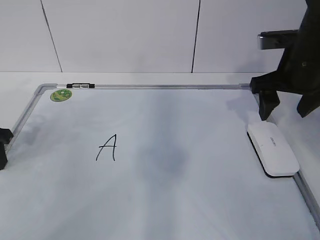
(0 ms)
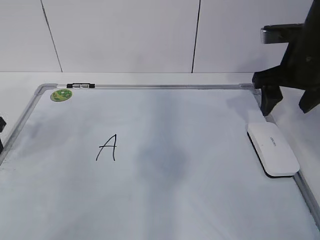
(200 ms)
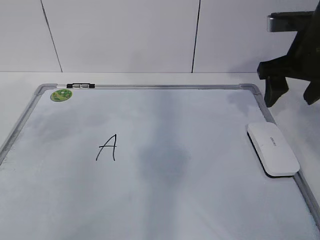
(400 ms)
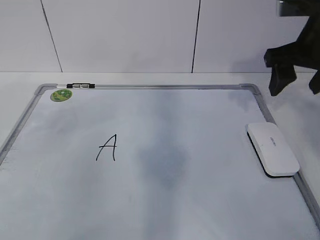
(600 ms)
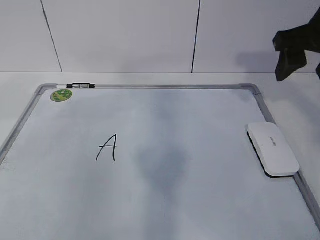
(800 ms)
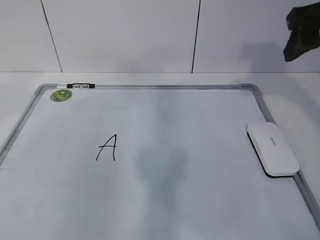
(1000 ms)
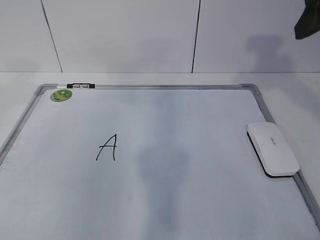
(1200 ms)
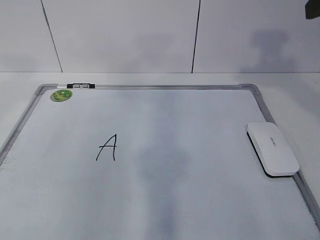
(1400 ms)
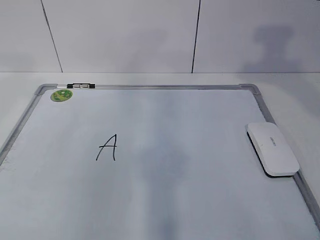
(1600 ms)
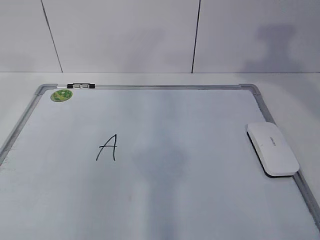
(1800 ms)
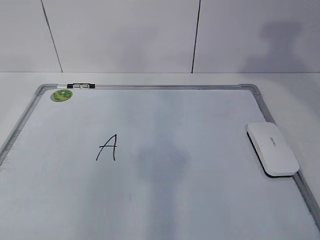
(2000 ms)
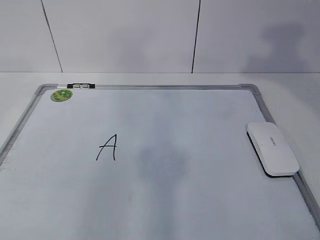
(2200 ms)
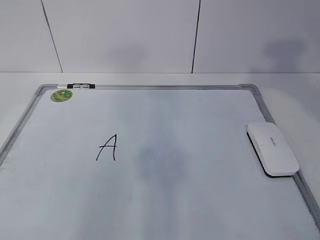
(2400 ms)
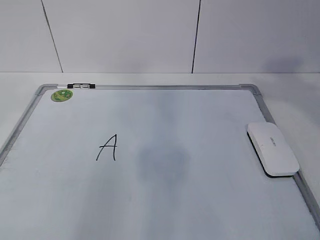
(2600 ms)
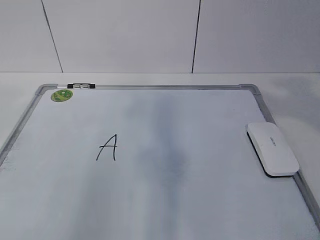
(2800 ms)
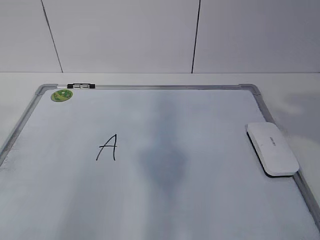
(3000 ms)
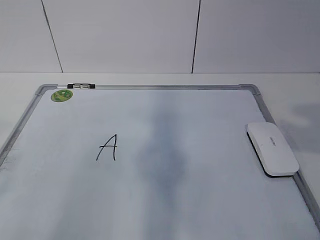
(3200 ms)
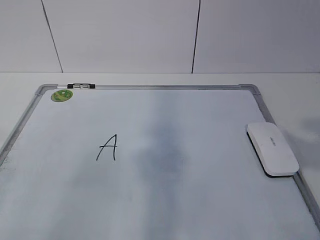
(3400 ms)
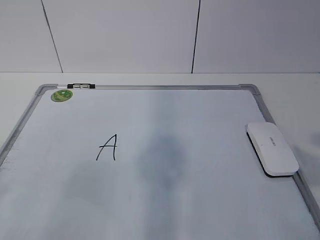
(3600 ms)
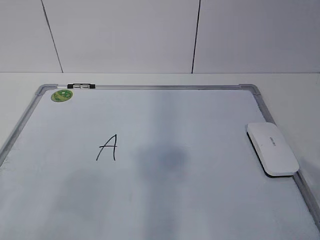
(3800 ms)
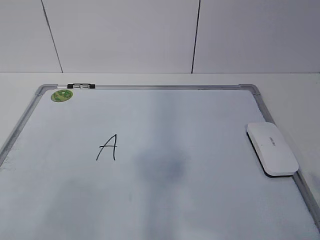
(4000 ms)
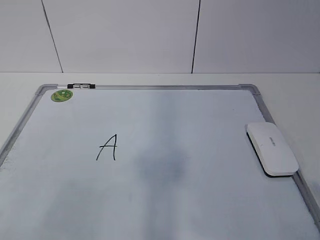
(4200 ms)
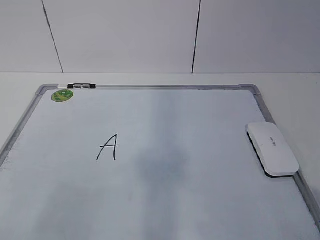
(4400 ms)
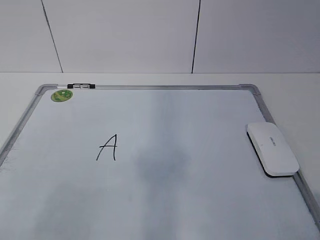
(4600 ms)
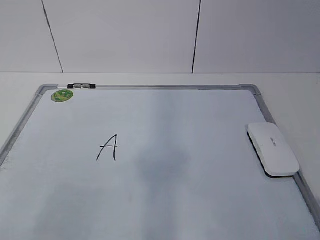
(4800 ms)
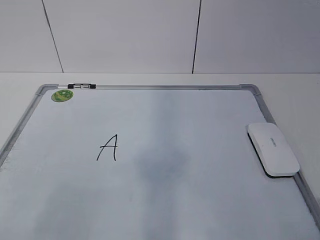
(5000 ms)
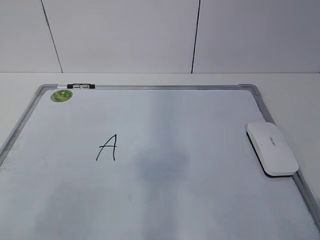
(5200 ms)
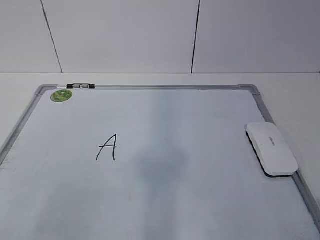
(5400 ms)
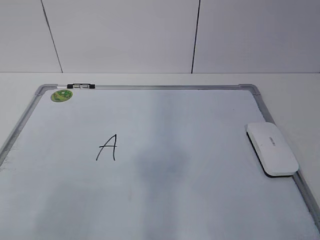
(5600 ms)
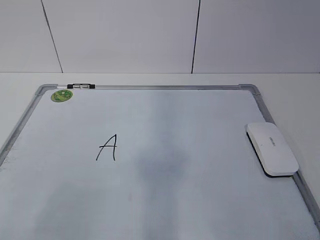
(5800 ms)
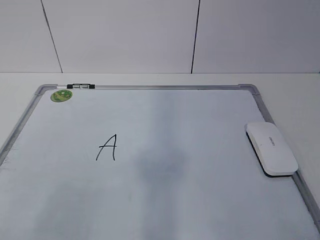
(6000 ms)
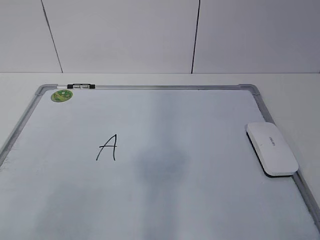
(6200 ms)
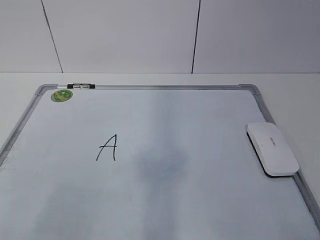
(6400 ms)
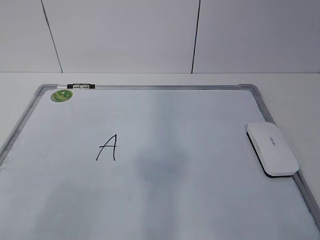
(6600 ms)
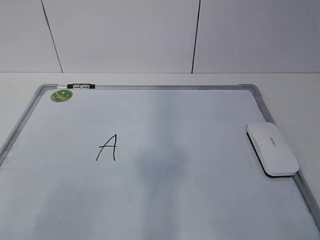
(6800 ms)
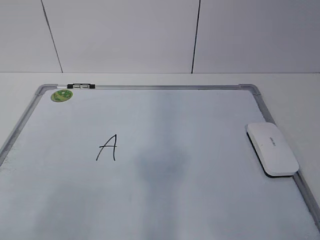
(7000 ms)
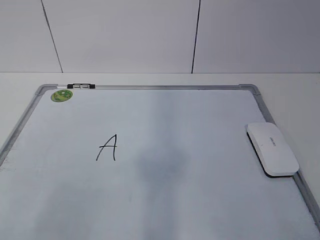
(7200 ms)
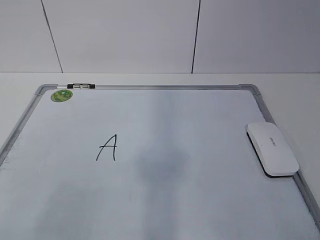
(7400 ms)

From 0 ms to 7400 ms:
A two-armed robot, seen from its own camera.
Task of the whole recording: pick up the eraser on the blackboard and erase the letter "a".
From 0 ms to 1400 ms: Both grippers move upward and backward, some 20 cm.
From 1400 ms to 3000 ms: The right gripper travels backward by some 15 cm.
From 6000 ms to 7400 ms: Both grippers stay put.

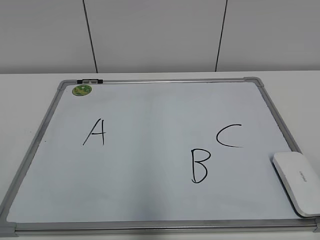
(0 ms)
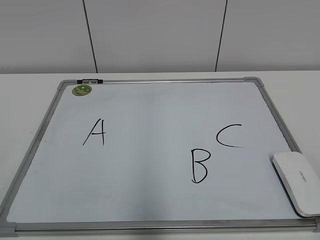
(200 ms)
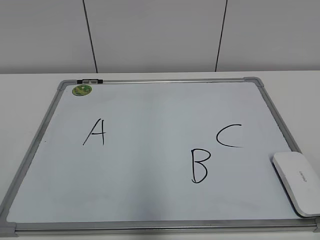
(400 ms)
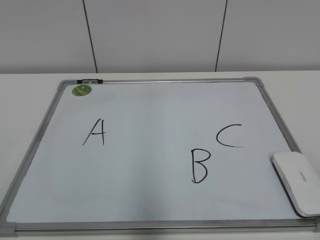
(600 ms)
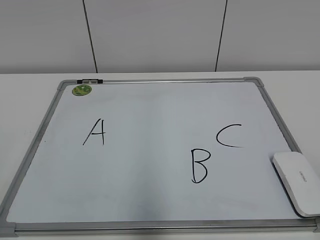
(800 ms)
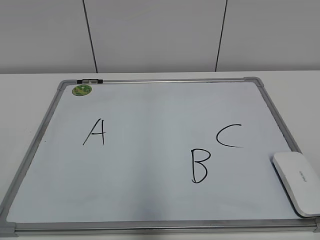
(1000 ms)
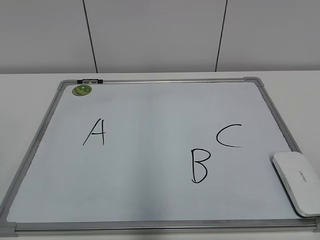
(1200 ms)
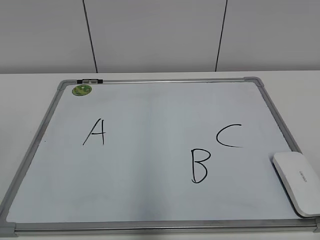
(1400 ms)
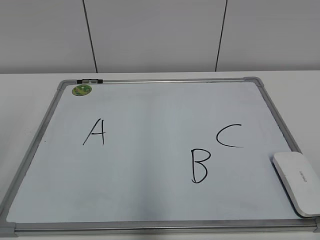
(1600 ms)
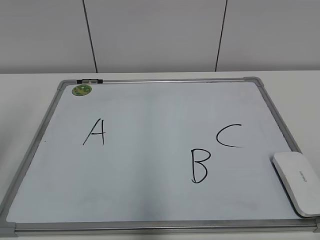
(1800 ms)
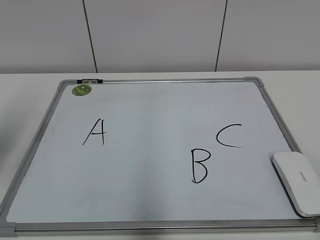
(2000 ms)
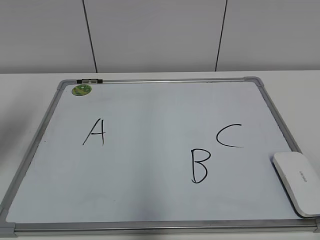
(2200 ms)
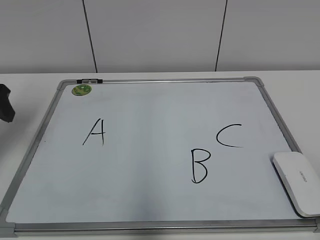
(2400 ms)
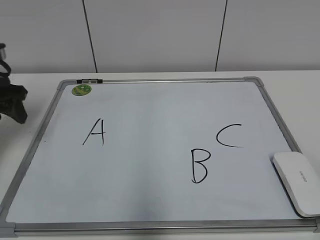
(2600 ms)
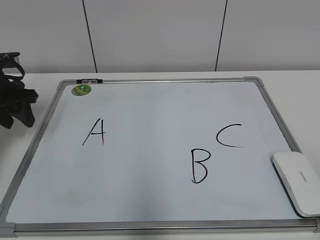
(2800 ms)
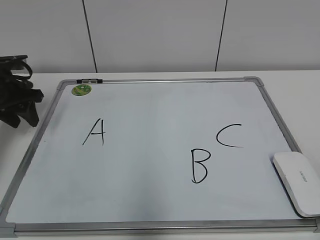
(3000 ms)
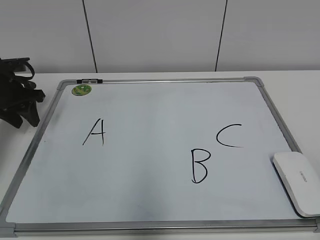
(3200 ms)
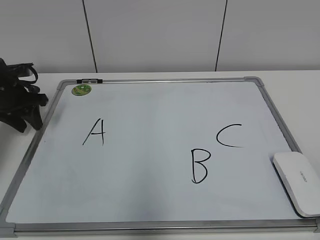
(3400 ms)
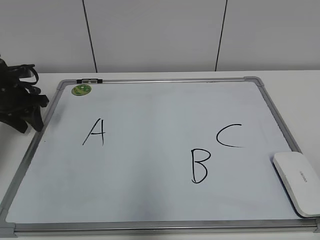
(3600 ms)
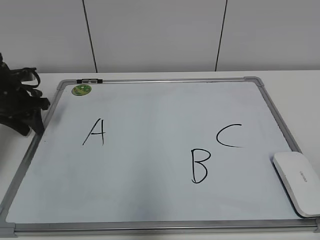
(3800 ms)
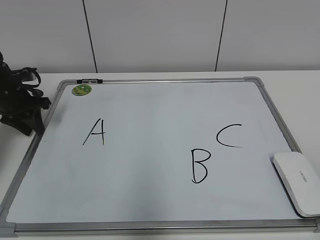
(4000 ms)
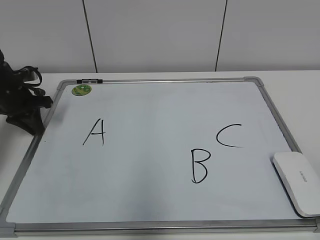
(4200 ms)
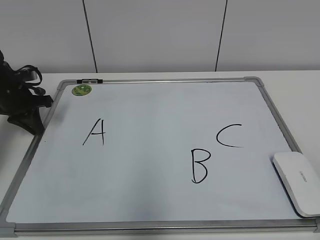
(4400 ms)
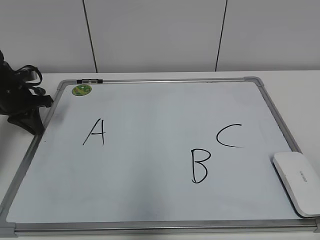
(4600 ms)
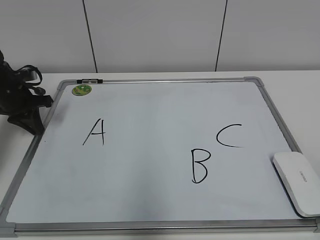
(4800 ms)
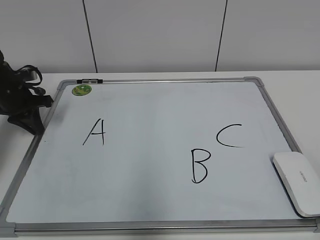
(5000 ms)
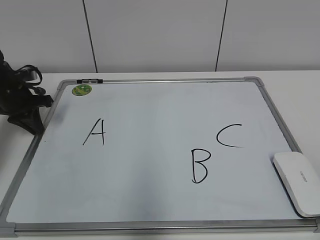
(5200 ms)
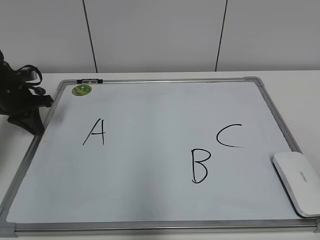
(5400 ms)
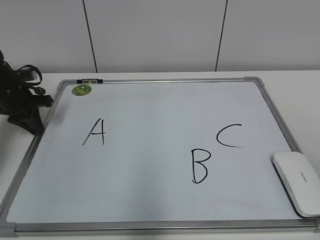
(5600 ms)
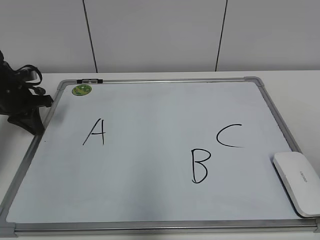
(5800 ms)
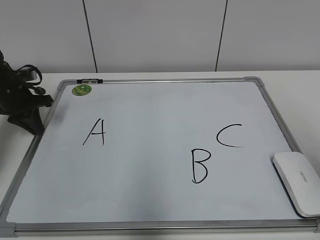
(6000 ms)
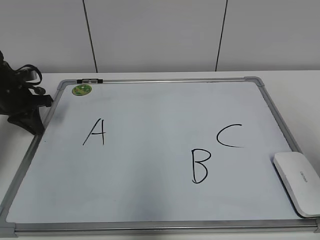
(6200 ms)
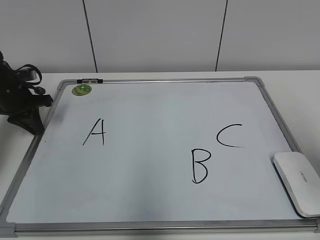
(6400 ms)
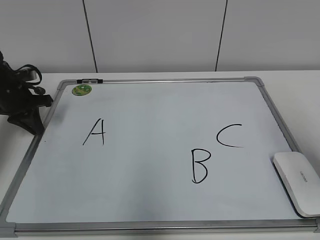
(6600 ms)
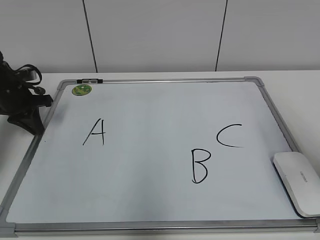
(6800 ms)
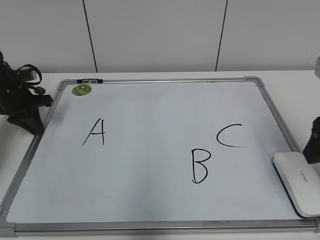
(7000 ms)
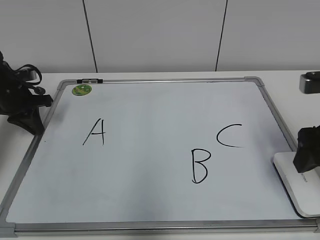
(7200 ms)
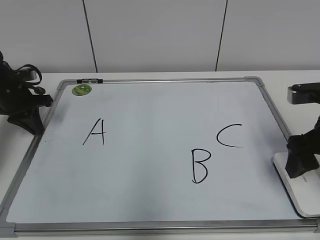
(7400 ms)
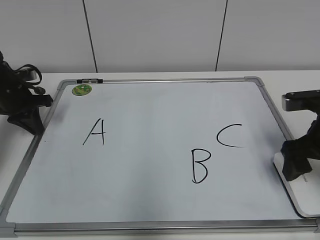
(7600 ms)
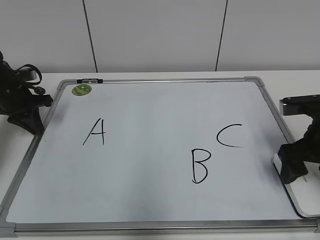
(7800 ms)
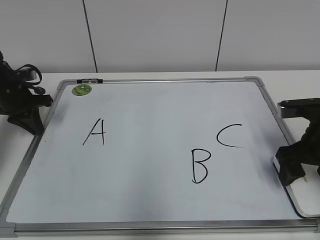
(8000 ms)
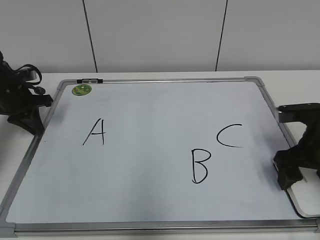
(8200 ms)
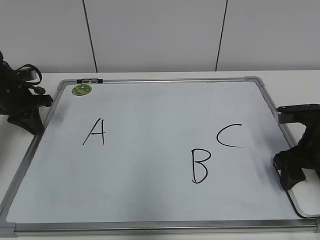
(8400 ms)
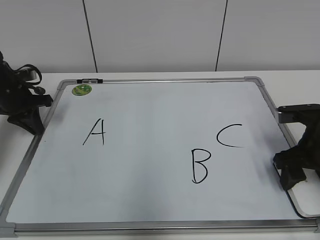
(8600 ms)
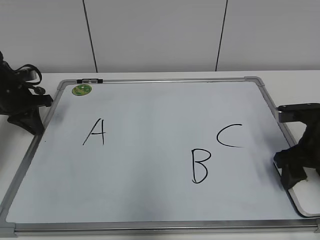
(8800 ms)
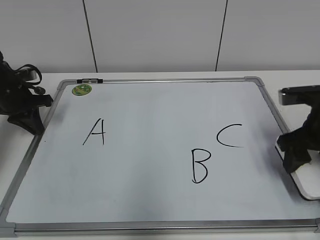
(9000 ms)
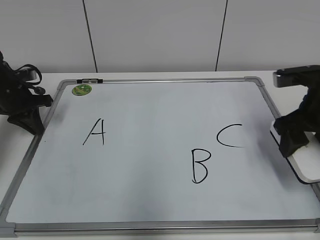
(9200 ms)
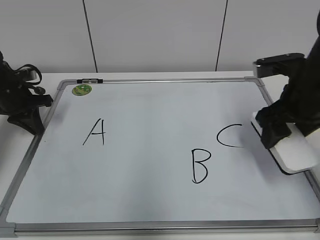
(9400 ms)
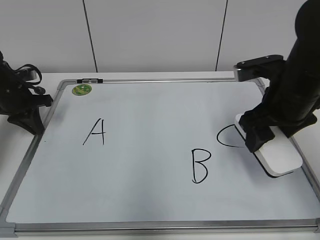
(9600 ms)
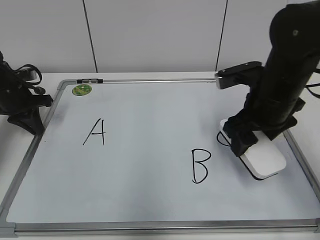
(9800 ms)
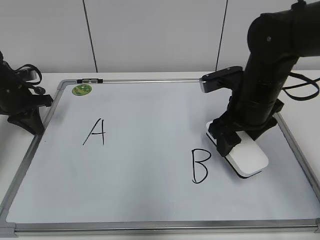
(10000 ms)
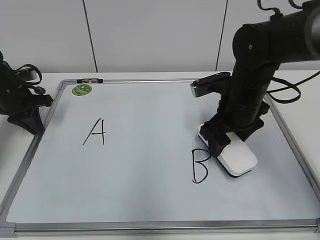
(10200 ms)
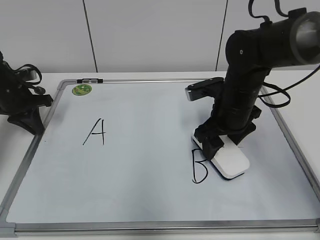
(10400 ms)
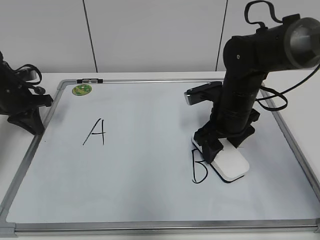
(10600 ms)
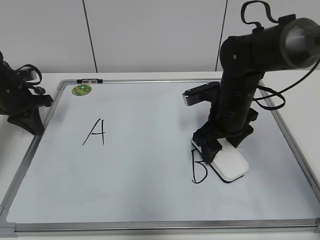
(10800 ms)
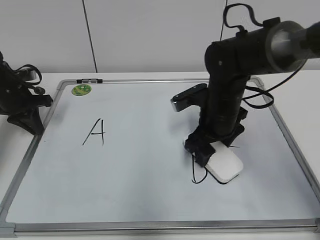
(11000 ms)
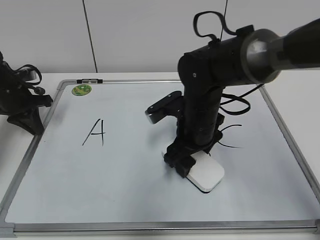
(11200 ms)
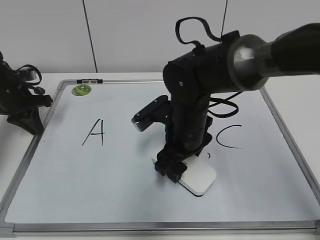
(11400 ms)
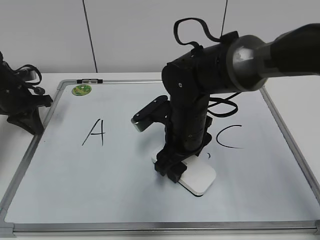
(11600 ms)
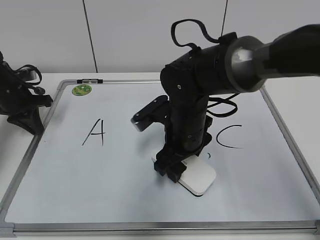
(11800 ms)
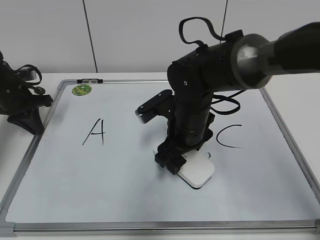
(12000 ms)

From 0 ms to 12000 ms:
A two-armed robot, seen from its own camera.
Task of the whole recording: pick up the eraser on the blackboard and erase the letter "B".
Step, from 0 ms to 4800 ms: Hold the drawing board steady with your left hand.
Step, from 5000 ms to 8200 ms: Grab the eraser with your right hand.
From 1600 ms to 3000 ms: The left gripper moves forward and downward, some 35 cm, and closes its fingers.
From 3000 ms to 4400 ms: The left gripper closes.
From 6000 ms to 7600 ms: The right gripper goes roughly 25 cm forward and downward, and opens its fingers.
From 7600 ms to 9000 ms: The right gripper closes its fingers.
From 9000 ms to 10400 ms: The right gripper is displaced to the left and forward by about 15 cm.
From 10400 ms to 12000 ms: The right gripper travels to the left by about 10 cm.

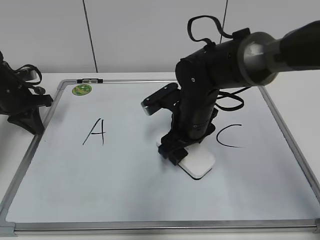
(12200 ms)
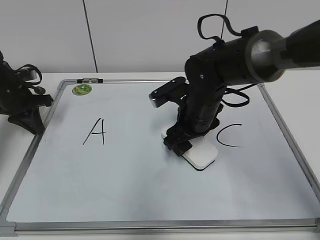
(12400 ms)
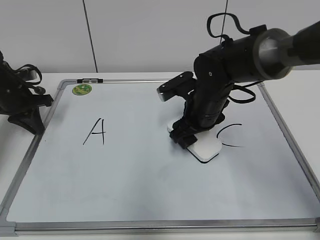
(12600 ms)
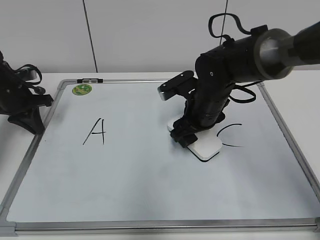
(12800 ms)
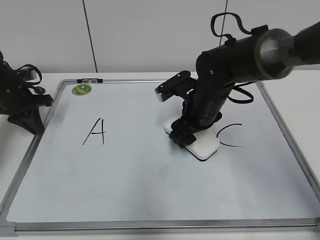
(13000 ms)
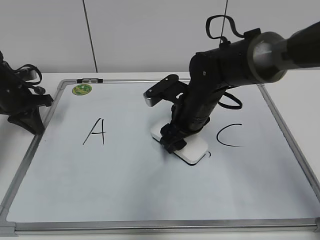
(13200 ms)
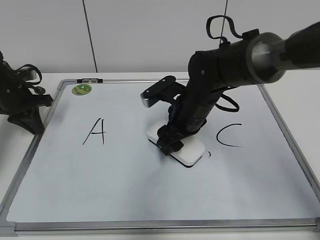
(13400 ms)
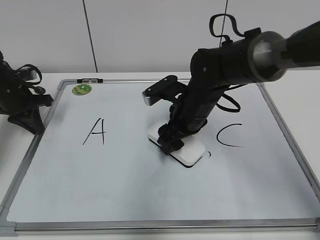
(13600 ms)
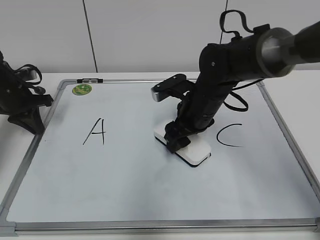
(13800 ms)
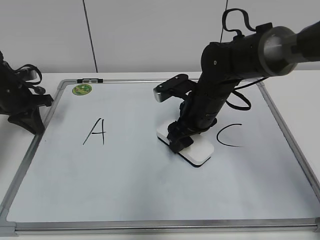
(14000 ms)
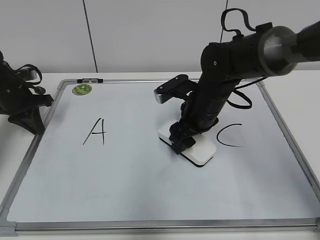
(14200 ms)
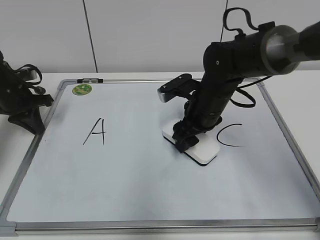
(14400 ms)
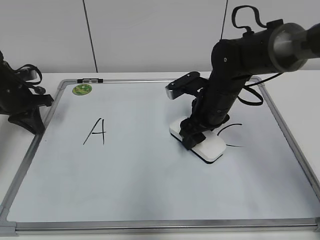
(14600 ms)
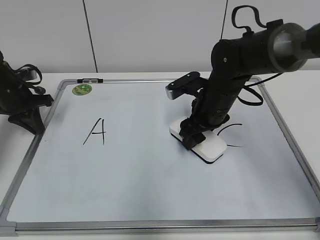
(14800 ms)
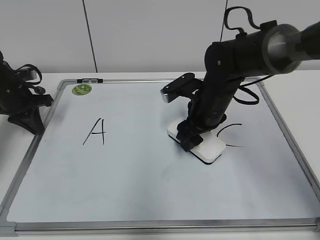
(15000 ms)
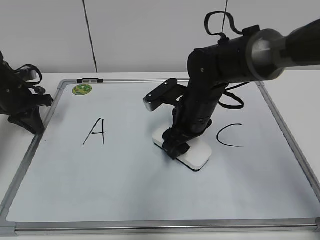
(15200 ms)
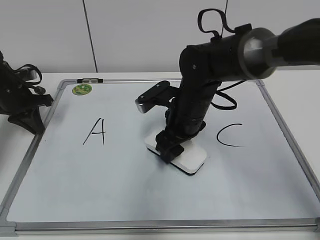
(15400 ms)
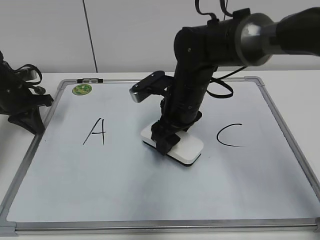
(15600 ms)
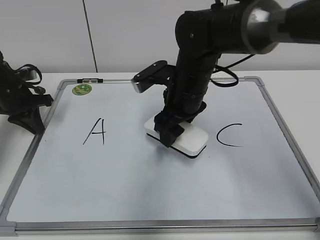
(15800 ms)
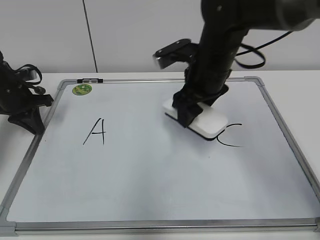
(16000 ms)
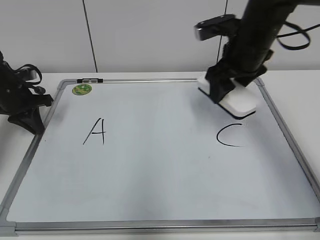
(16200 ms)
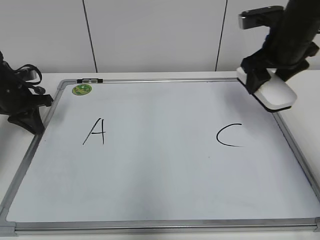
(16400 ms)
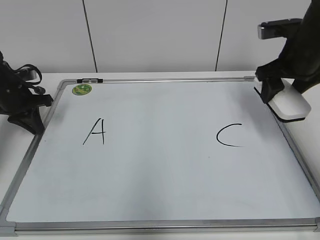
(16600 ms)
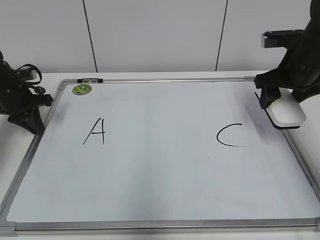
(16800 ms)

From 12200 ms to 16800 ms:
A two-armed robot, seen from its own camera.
Task of the whole recording: pick up the eraser on the blackboard and erase the letter "B".
Step, from 12200 ms to 15200 ms: Erase the letter B with your right hand.
From 12200 ms to 13800 ms: The grippers make only small movements.
From 13800 ms to 15200 ms: The grippers move only a little.
From 15200 ms to 16800 ms: The right gripper heads to the right and upward, covering some 20 cm.
